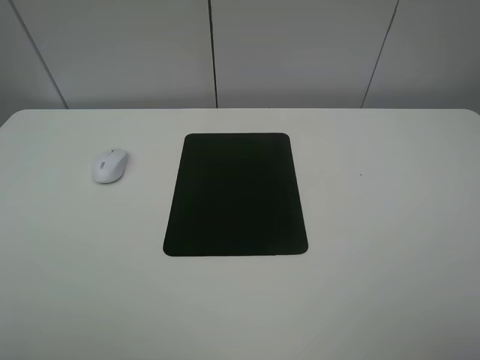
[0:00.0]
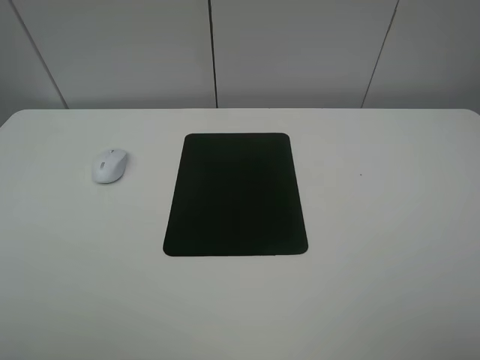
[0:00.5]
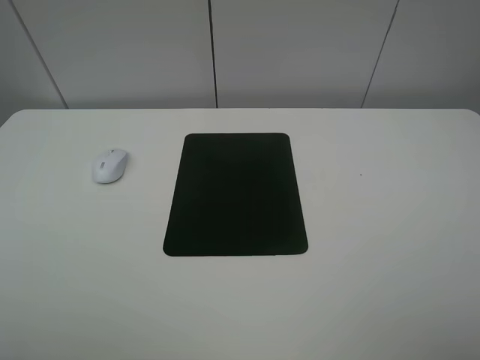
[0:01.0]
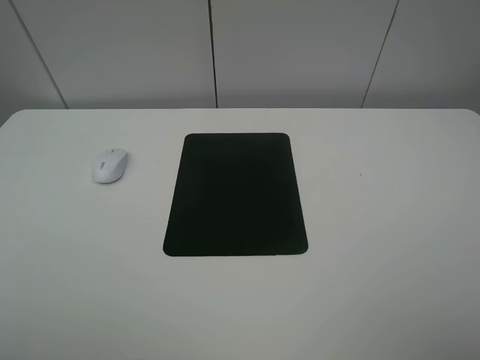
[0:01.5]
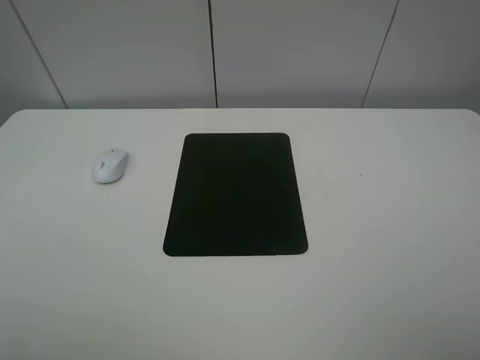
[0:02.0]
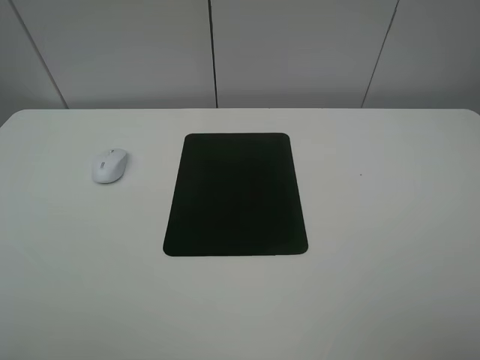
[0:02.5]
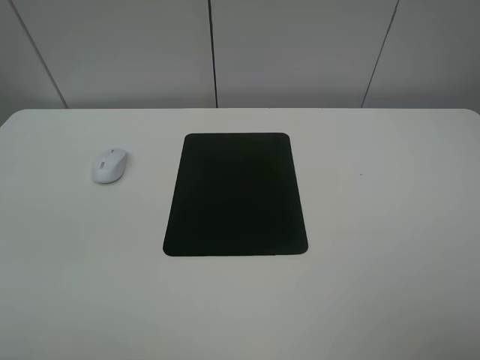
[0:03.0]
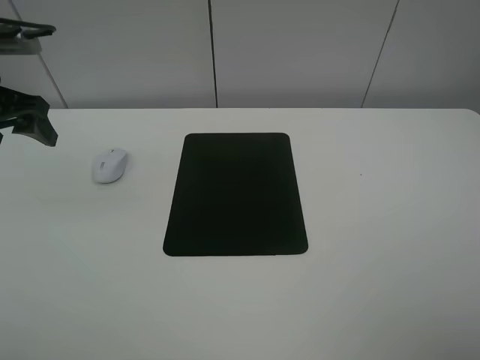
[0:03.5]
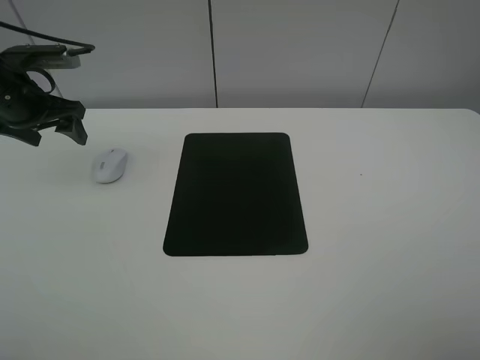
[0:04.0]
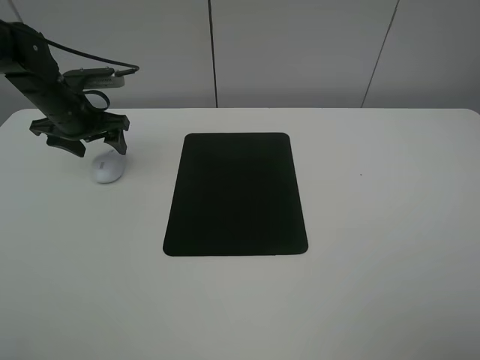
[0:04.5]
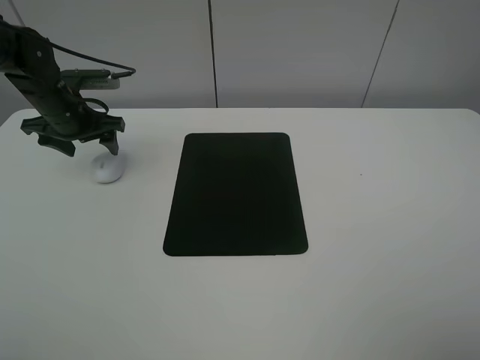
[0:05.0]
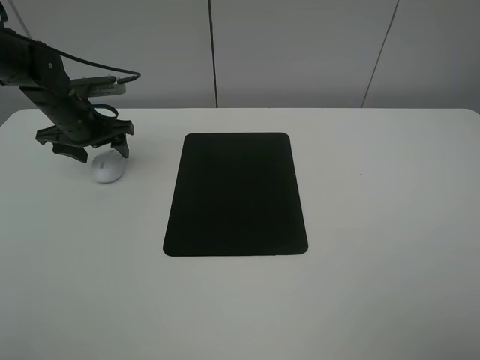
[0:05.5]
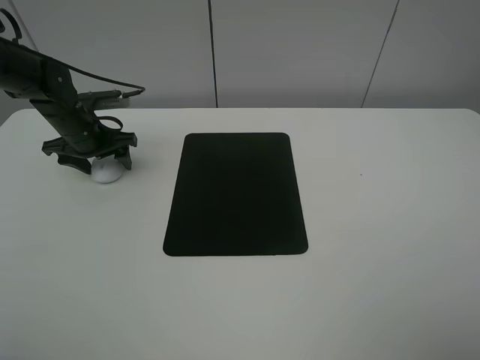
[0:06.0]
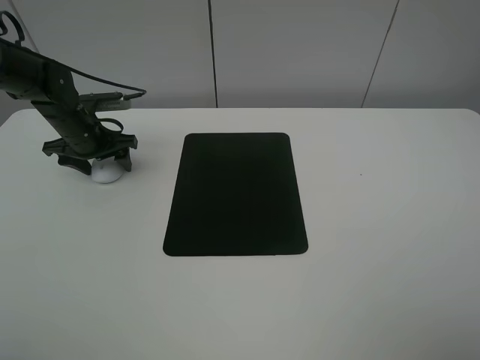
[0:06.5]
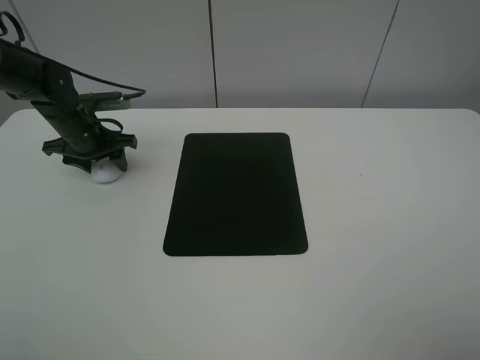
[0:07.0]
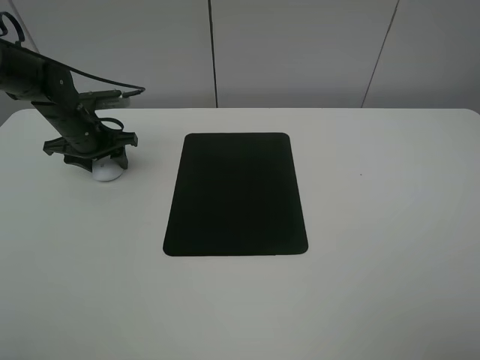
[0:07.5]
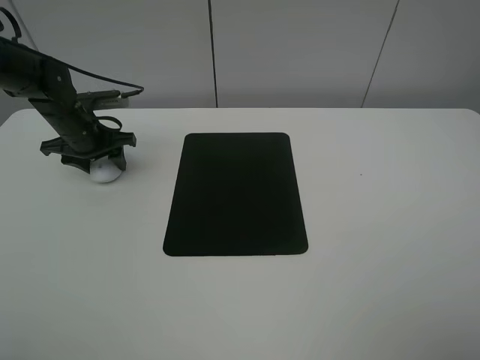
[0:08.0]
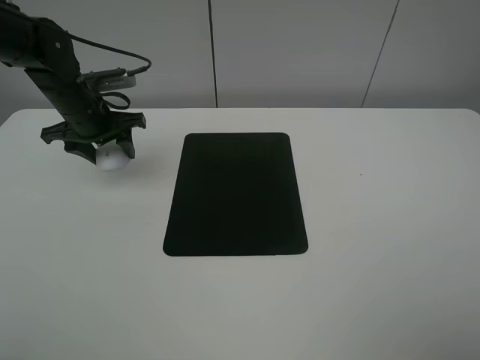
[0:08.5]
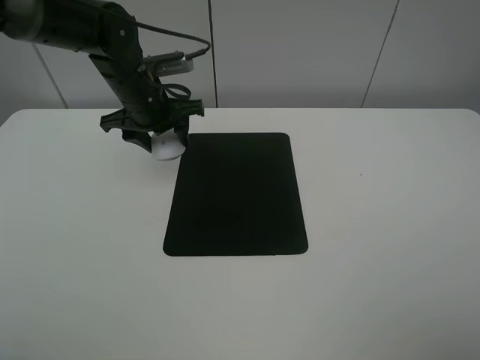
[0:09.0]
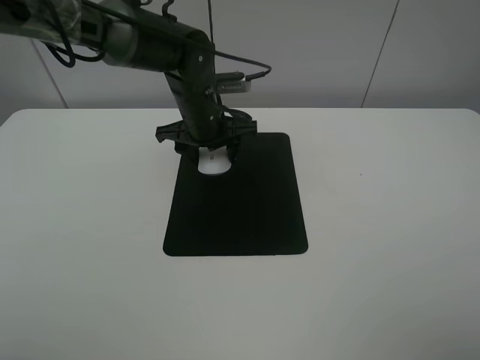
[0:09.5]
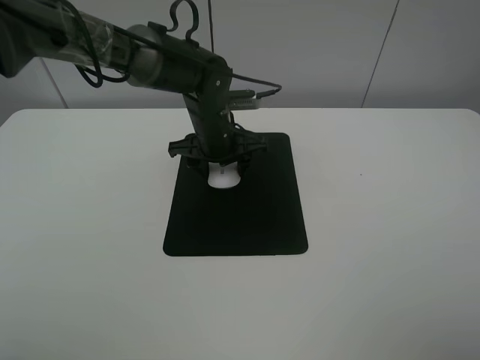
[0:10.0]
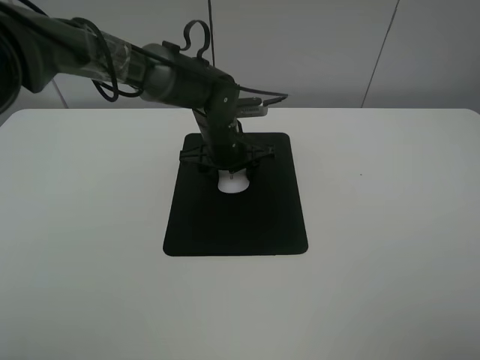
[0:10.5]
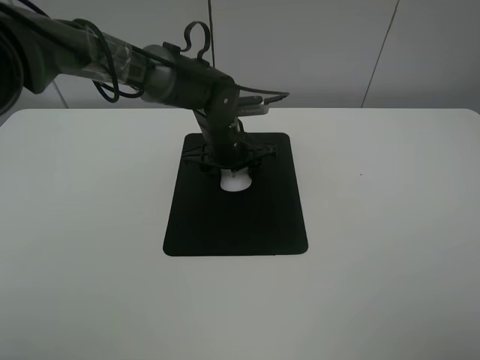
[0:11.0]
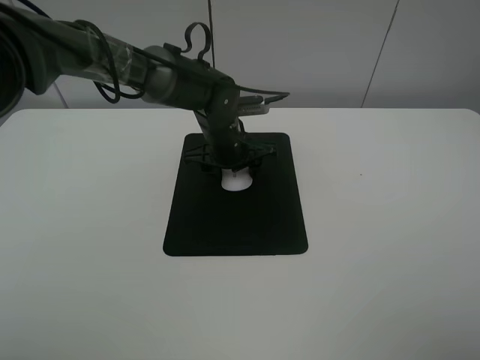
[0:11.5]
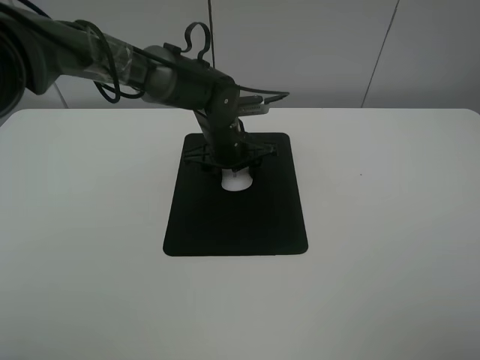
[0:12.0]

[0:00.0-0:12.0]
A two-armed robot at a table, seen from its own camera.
Step, 0:00.0 to 0:07.0: Grasp the mouse with the left gripper.
0:02.0 to 0:04.0: The left gripper travels forward by some 35 cm.
0:04.0 to 0:06.0: The left gripper shifts about 10 cm downward.
0:08.0 to 0:10.0: The left gripper shifts roughly 25 cm to the right.
0:10.0 to 0:12.0: The grippers make only small movements.

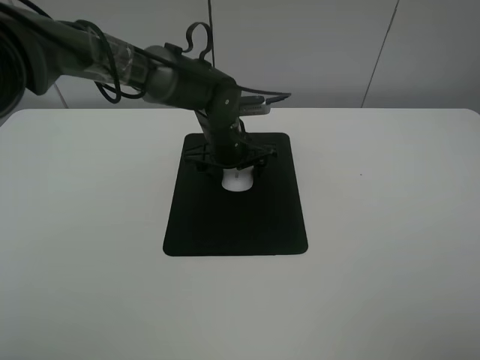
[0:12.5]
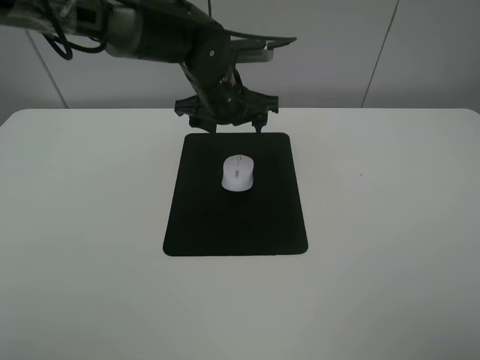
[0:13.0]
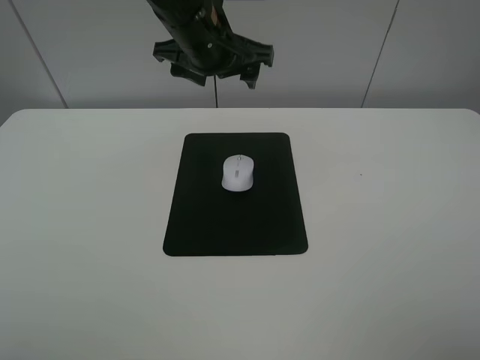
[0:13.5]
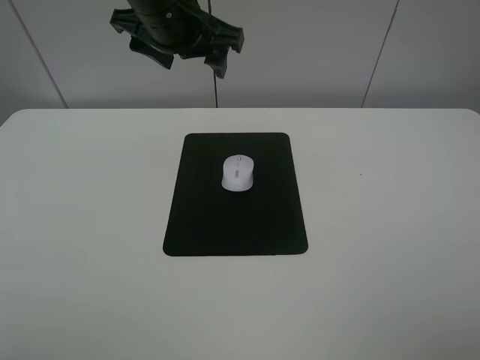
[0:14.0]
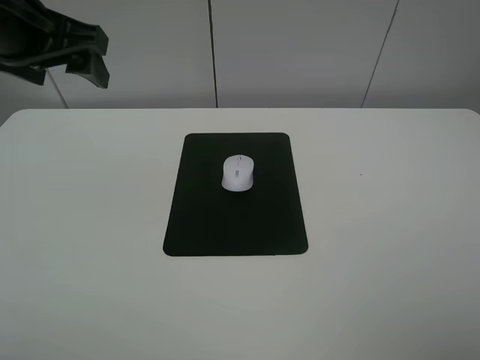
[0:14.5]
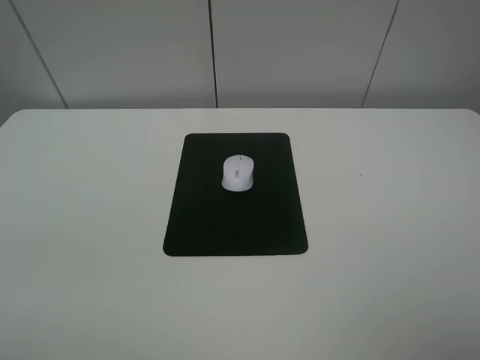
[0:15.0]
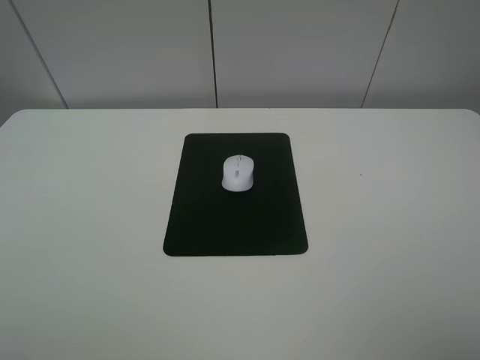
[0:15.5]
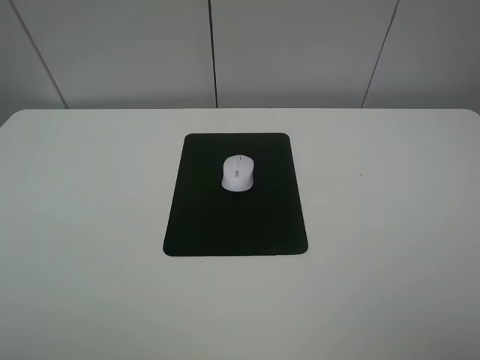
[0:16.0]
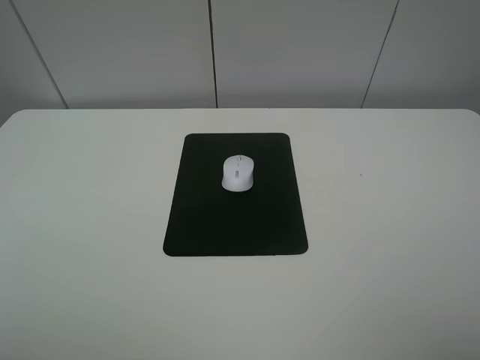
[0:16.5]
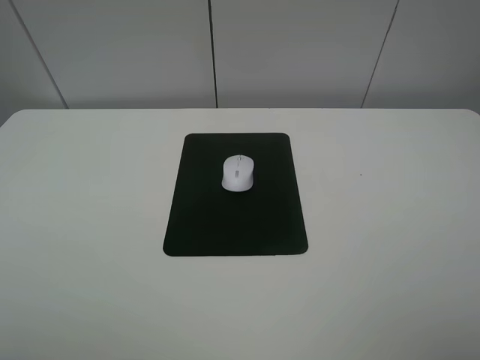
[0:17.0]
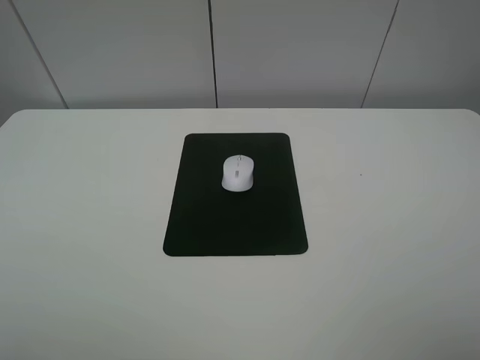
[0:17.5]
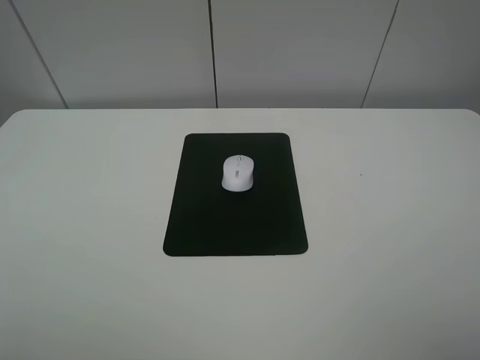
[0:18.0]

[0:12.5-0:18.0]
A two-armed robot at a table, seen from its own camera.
0:12.5 to 0:14.5: The left gripper is displaced upward, to the left and backward by some 30 cm.
0:14.5 to 0:16.0: The left gripper goes roughly 25 cm backward and to the left.

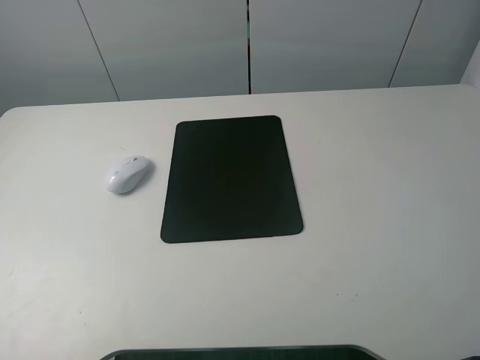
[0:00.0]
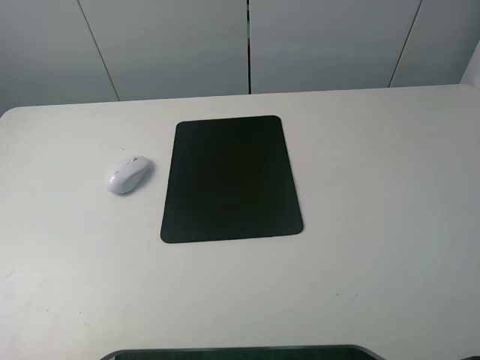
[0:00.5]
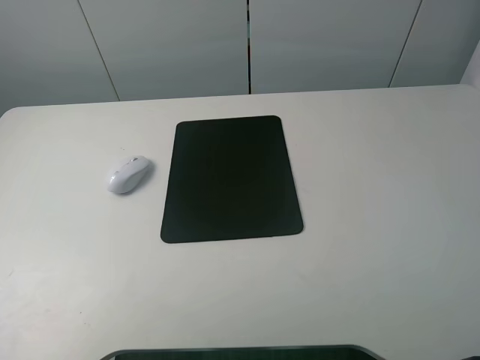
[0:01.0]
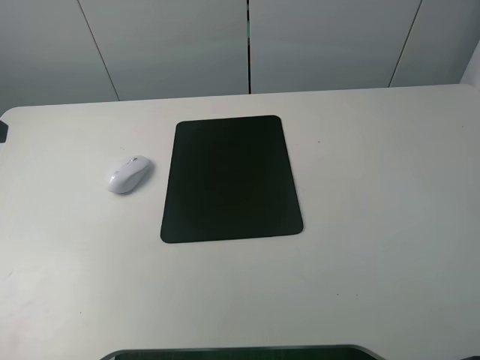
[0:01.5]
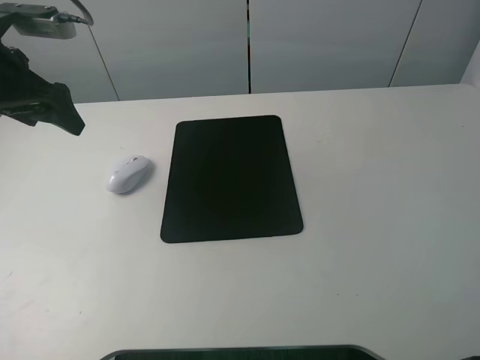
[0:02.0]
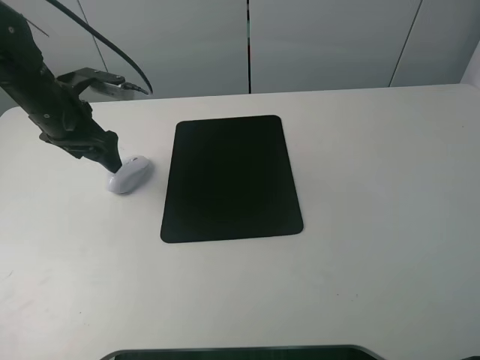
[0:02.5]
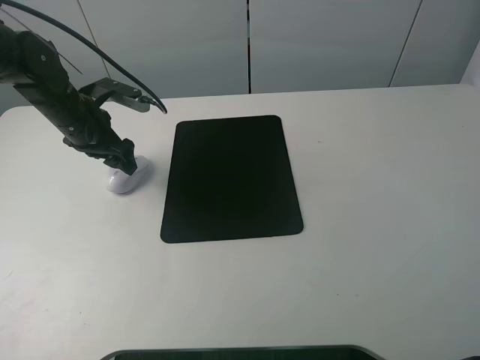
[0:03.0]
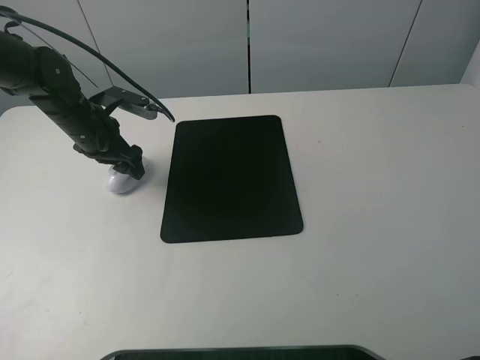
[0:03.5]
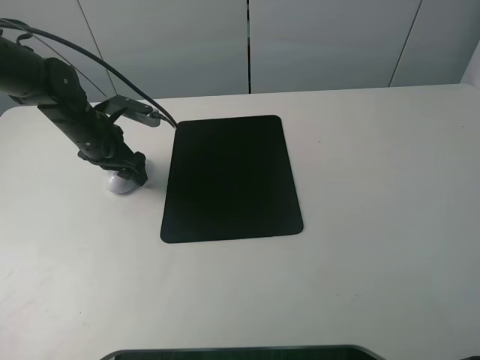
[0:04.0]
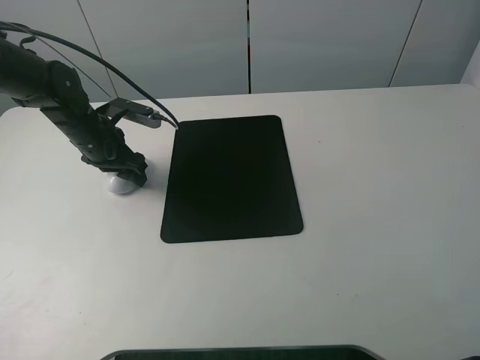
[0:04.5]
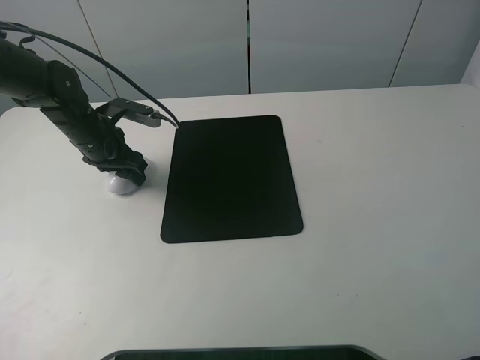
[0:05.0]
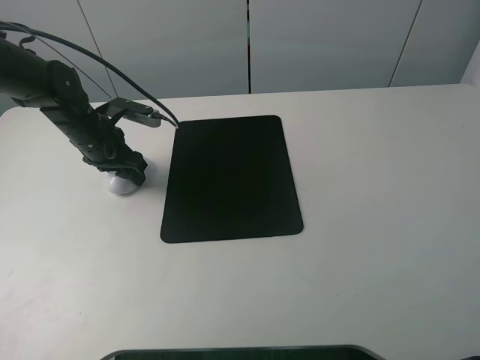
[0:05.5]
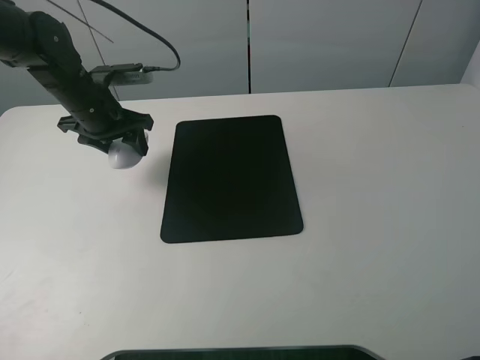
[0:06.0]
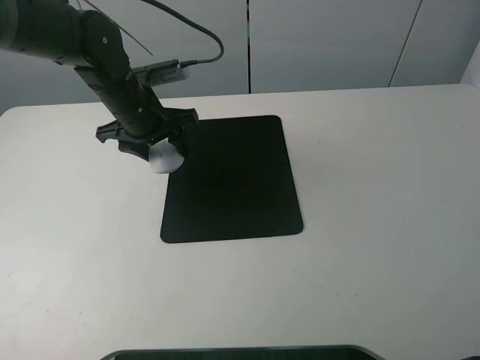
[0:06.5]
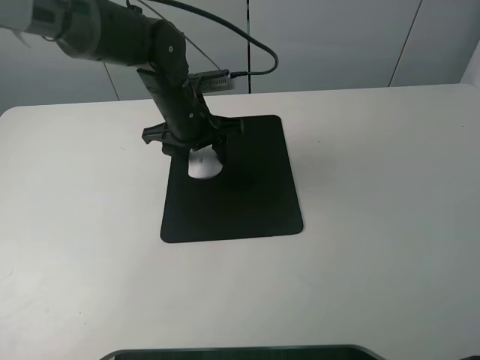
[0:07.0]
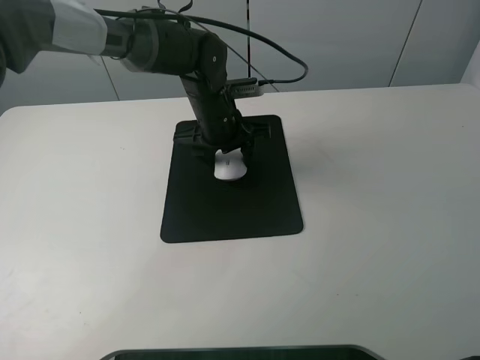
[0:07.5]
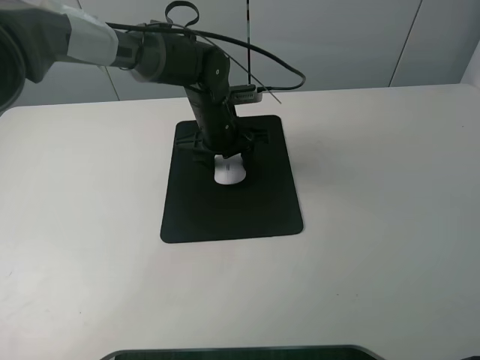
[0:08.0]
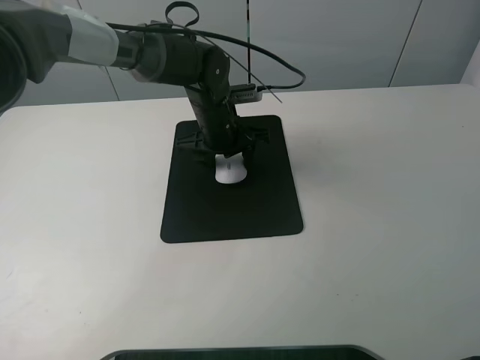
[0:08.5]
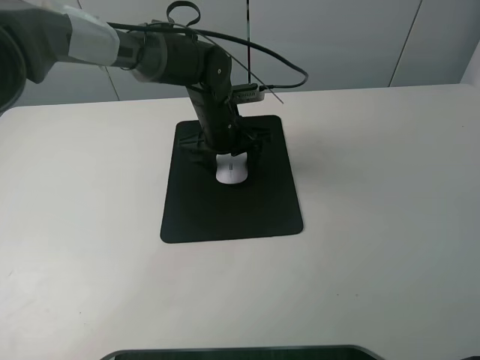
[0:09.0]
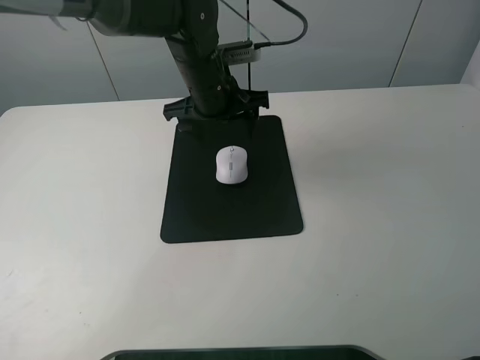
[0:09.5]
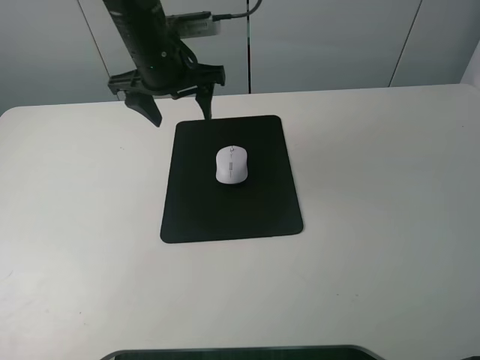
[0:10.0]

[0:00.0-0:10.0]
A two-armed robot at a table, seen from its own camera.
Step, 0:00.0 to 0:05.0: Grasp the mouse with the left gripper.
Step, 0:05.5 to 0:08.5: Place the mouse on the mouse mat with the left gripper.
0:00.0 to 0:02.0: The left gripper is displaced forward by about 30 cm.
0:02.0 to 0:04.0: The left gripper moves downward, some 15 cm.
0:04.0 to 0:06.0: The left gripper is displaced upward by about 5 cm, and closes.
0:06.0 to 0:08.0: The left gripper moves to the right, roughly 20 cm.
0:08.0 to 0:10.0: The left gripper travels upward and to the left by roughly 15 cm, and opens up.
